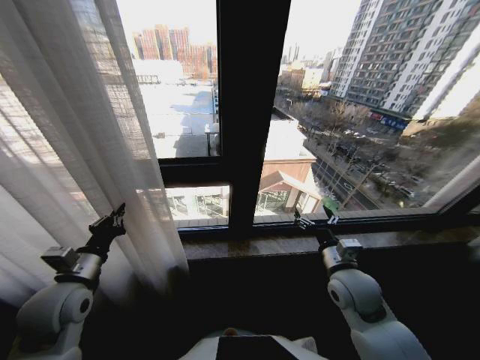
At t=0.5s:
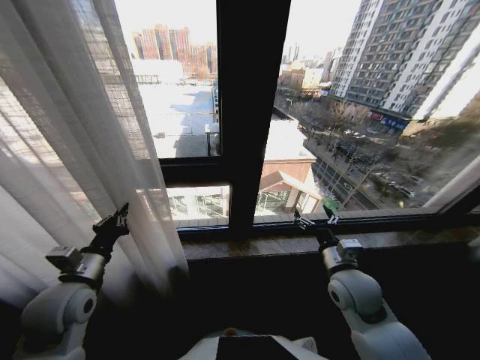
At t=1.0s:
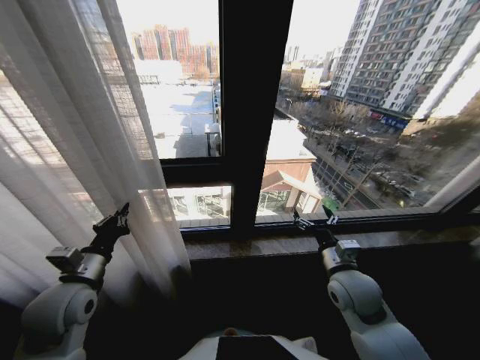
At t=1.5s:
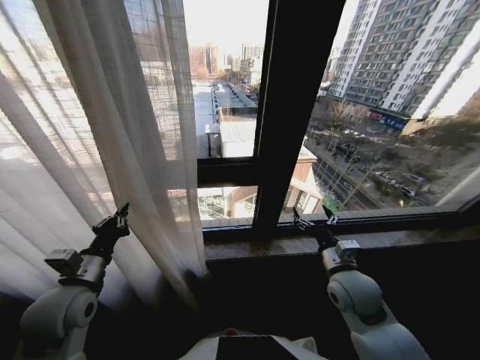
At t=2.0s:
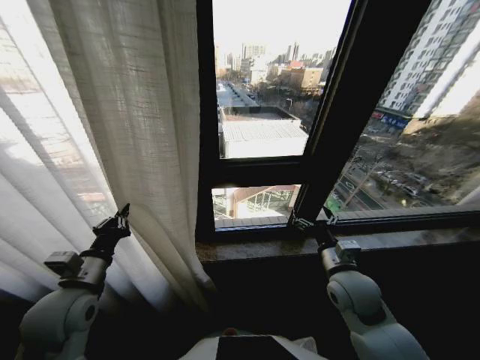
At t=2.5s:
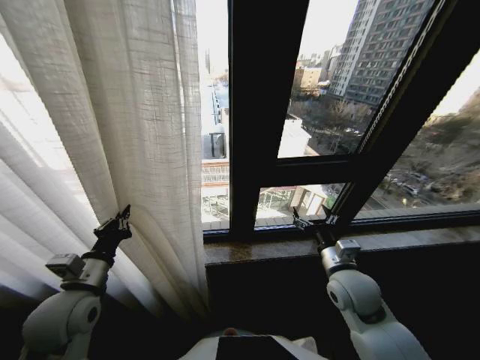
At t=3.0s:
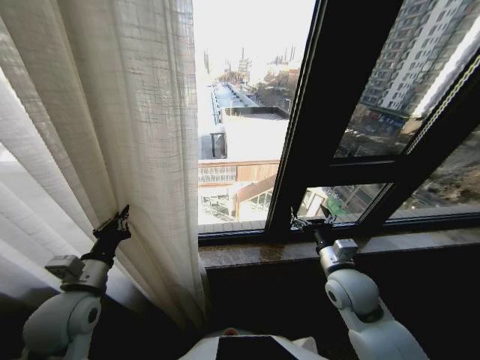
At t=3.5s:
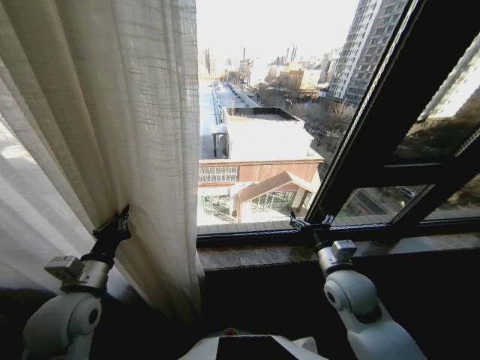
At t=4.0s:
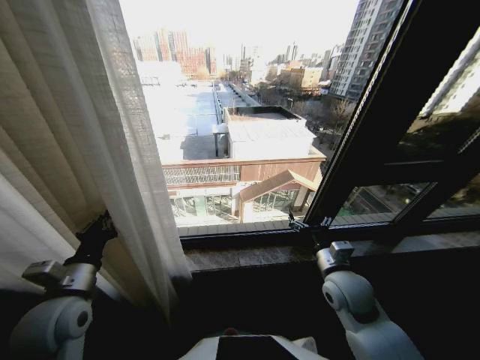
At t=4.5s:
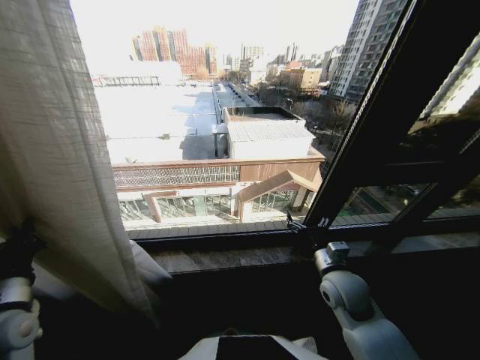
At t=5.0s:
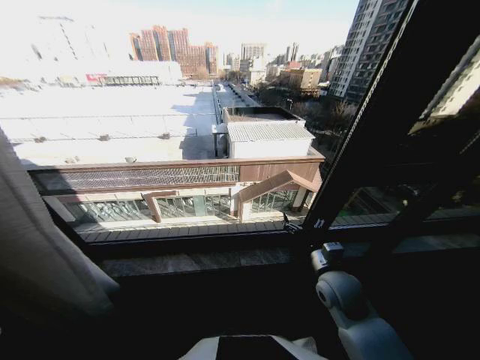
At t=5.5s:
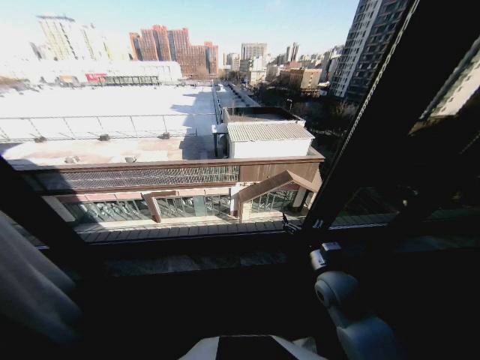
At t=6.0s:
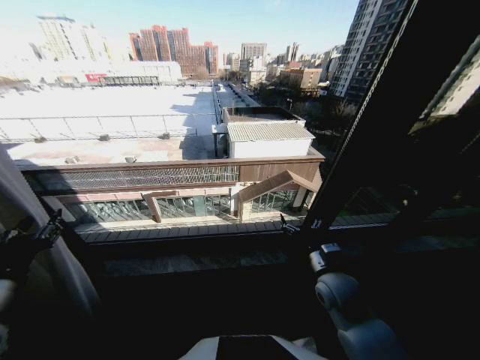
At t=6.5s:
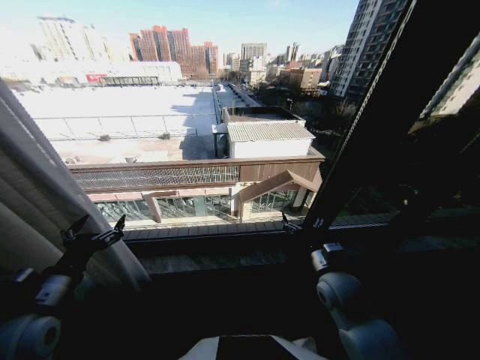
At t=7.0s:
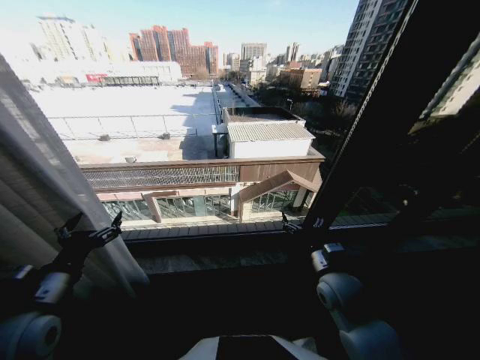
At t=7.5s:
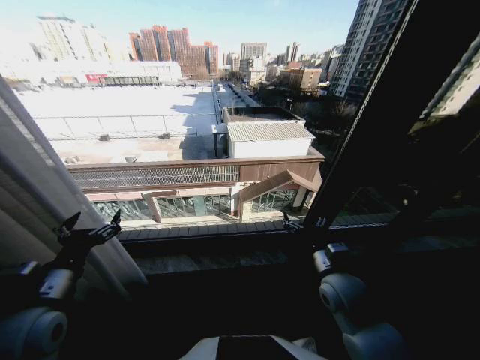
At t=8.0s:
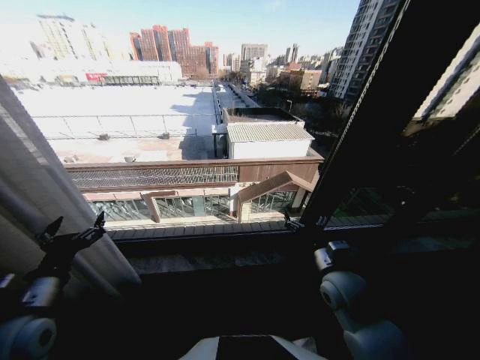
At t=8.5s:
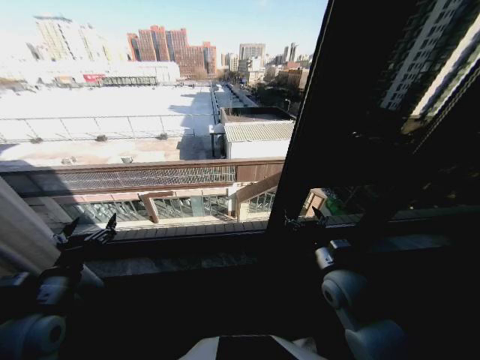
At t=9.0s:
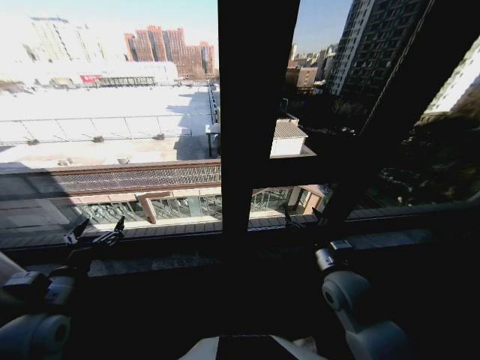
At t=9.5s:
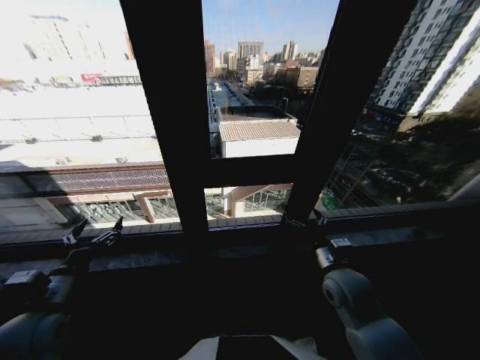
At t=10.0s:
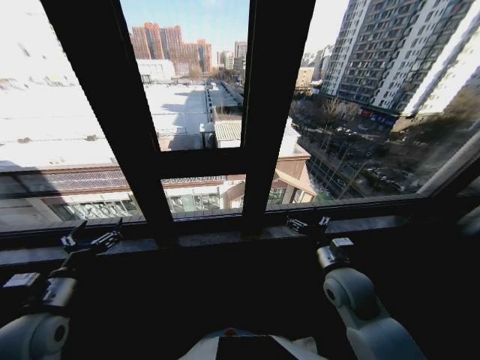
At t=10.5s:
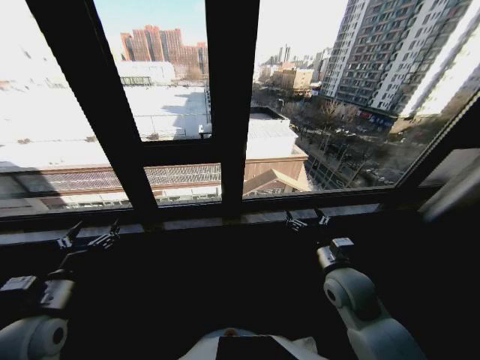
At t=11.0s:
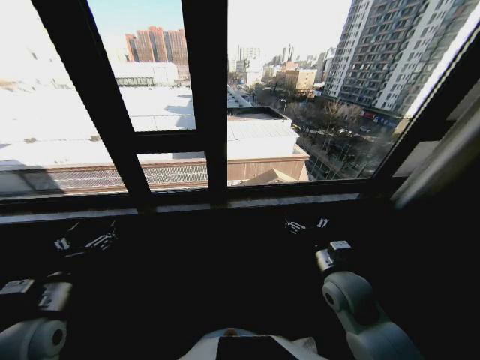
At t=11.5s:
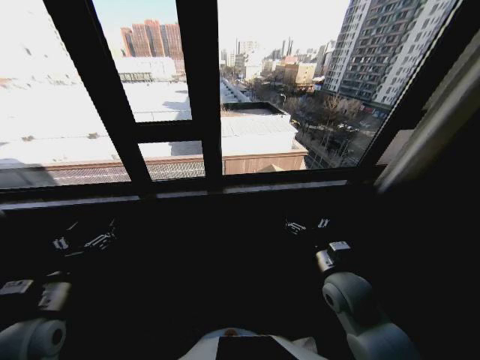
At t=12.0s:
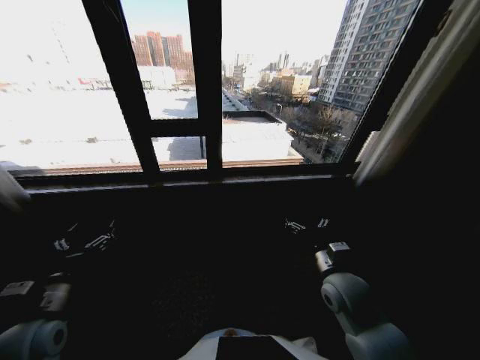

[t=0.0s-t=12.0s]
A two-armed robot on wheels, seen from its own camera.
Task of the whole recording: Open the curtains by pulling them apart, changing their state from closed to fully open.
t=4.0s to t=6.0s: The left gripper travels to the left by some 10 cm, and opens.
t=6.0s to t=8.0s: The left gripper changes place by about 5 cm, and opens.
